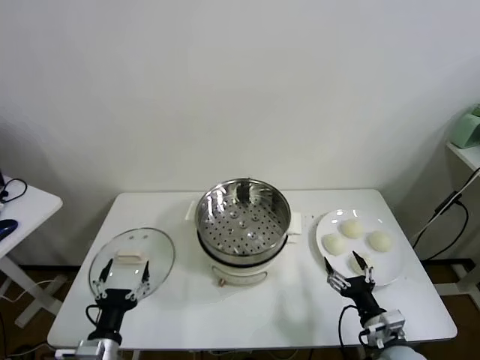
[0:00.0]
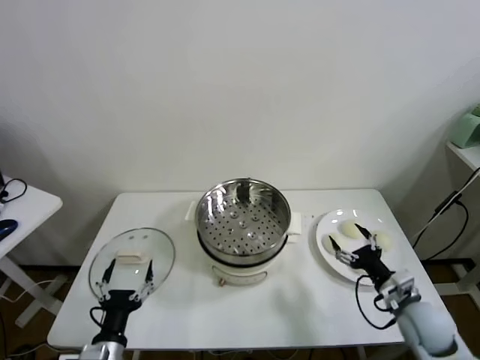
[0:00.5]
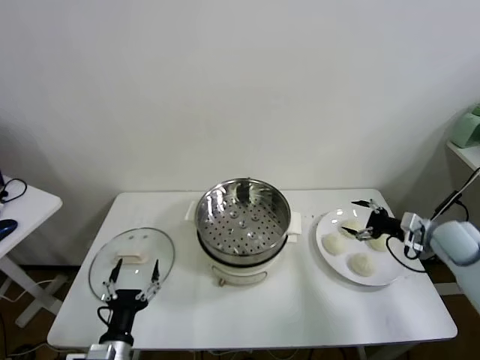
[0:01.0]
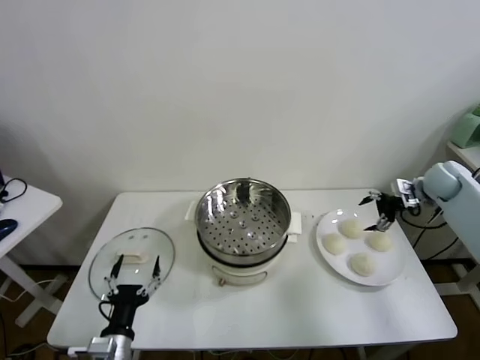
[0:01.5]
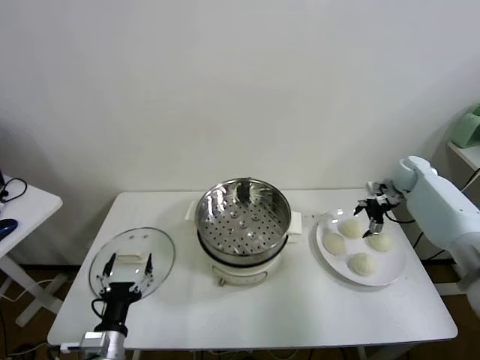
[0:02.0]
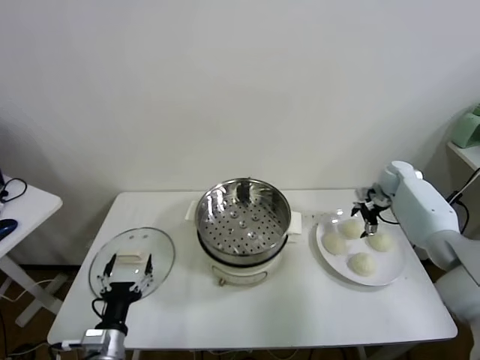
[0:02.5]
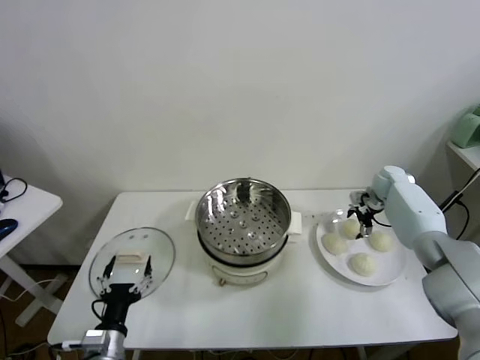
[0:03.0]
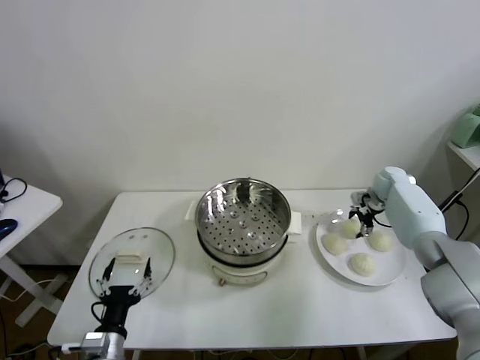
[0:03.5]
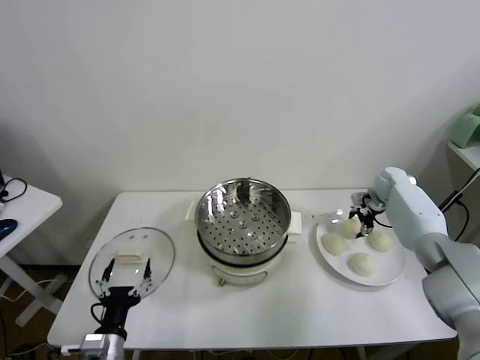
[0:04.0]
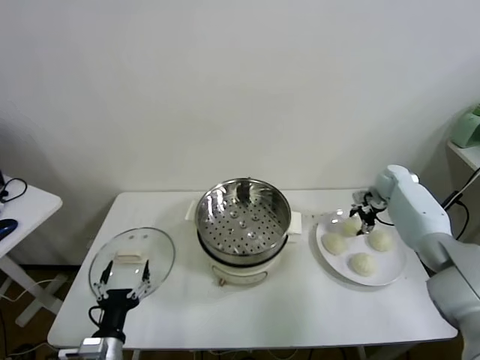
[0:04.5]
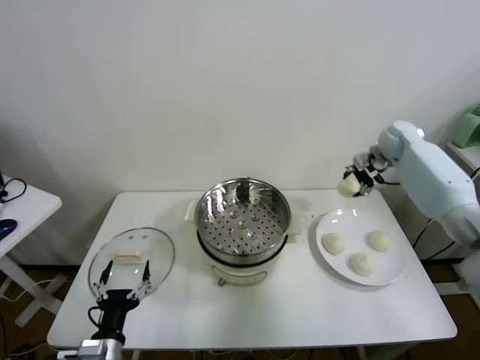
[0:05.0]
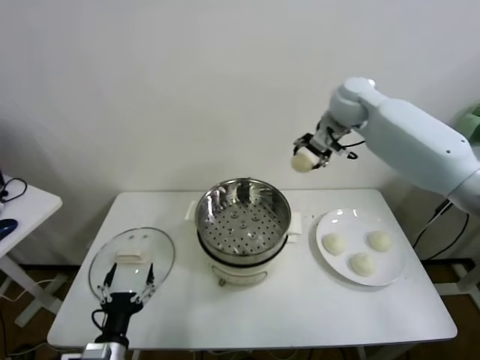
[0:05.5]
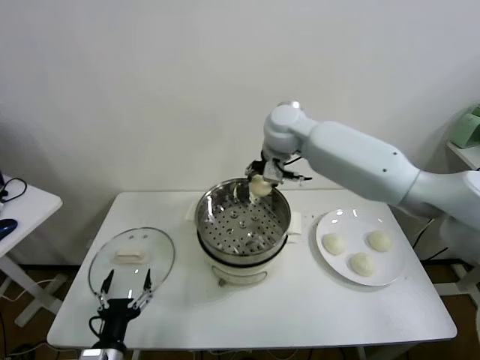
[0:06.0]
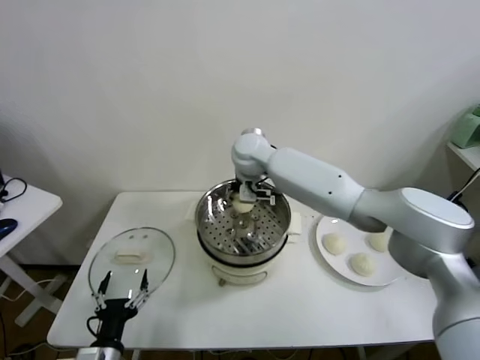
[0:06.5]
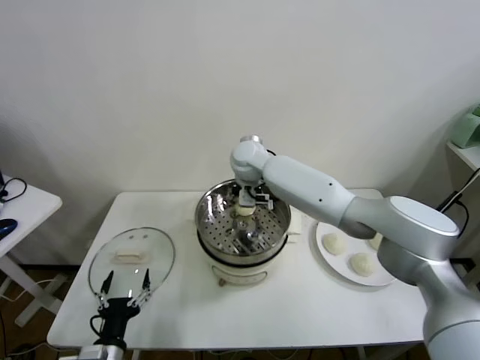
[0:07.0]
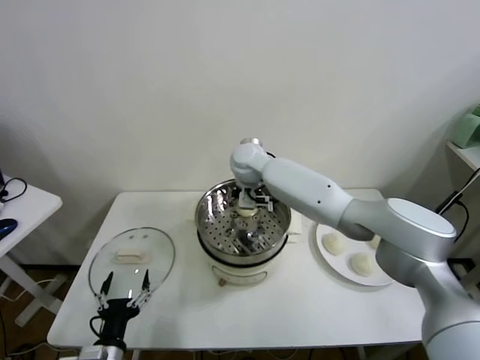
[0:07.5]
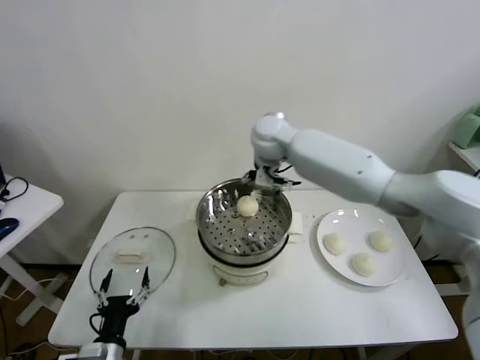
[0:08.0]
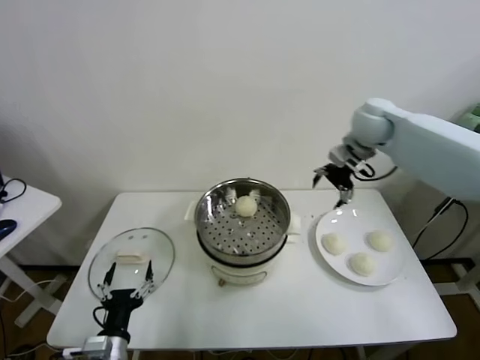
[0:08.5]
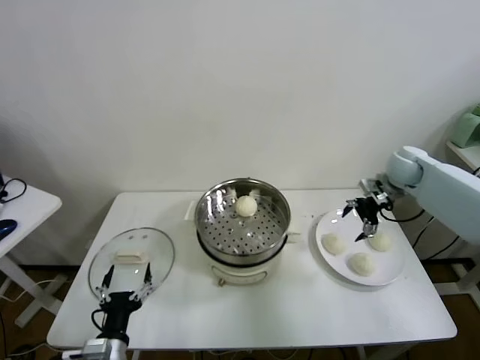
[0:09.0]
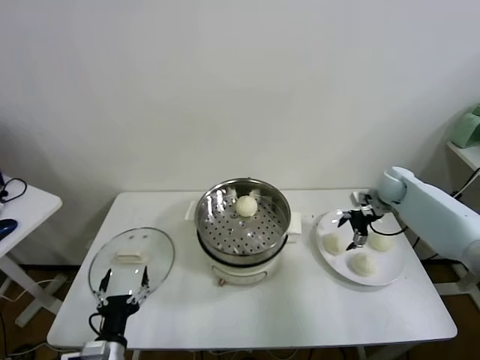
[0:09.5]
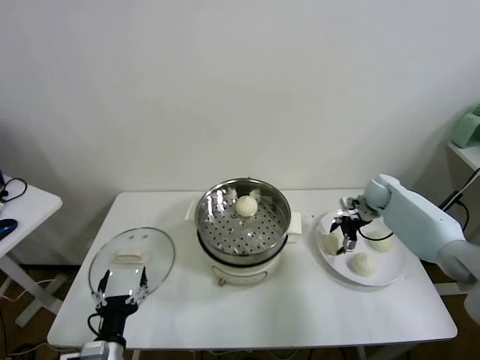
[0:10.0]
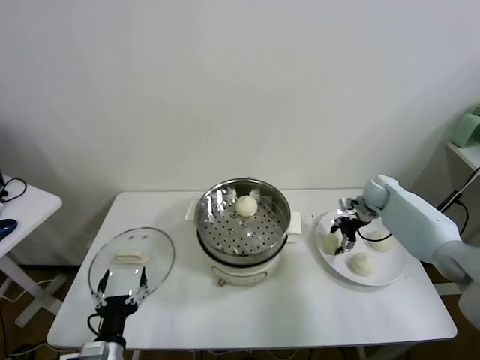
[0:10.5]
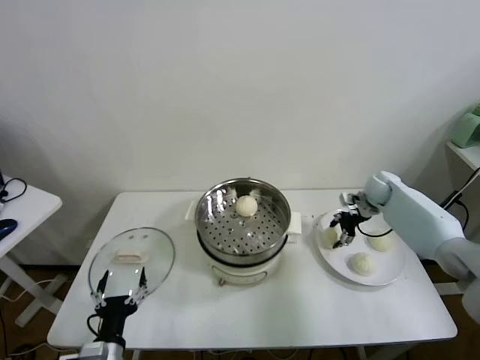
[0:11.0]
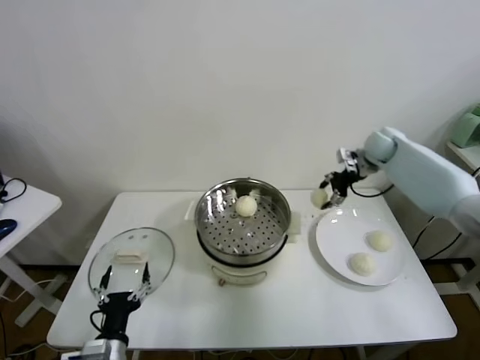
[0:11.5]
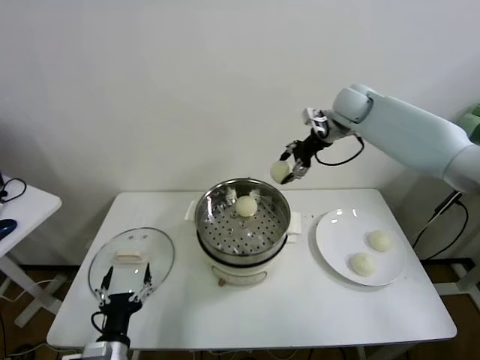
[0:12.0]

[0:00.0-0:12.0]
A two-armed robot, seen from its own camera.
Task of the whole recording: take steamed baozi put them in steamer.
Step, 0:00.0 to 0:04.0: Grasp the baozi in the plate with right gripper.
Step, 0:04.5 to 0:07.5: Place the baozi on the steamer with right gripper.
Step, 0:08.0 to 0:10.5: Grasp the baozi in the plate with right gripper.
0:02.0 to 0:04.0: The right gripper closes its fingers.
0:04.0 to 0:06.0: The right gripper shifts roughly 40 cm to the left and upward.
0:06.0 to 0:08.0: The right gripper travels downward and back again, about 10 cm each way, and opens.
0:08.0 to 0:10.0: The right gripper shifts some 35 cm to the right and downward.
0:10.0 to 0:12.0: The right gripper heads upward and to the left, covering approximately 30 cm, and closes up.

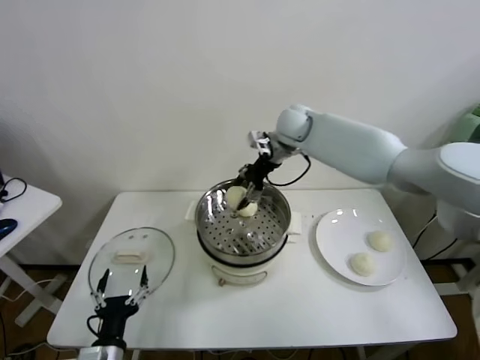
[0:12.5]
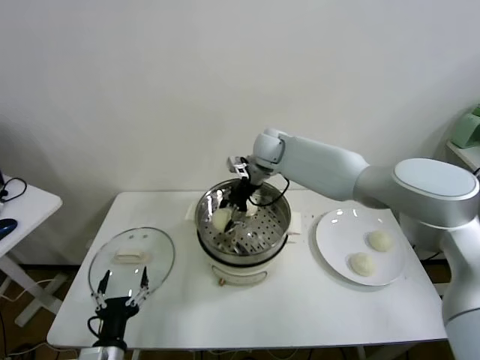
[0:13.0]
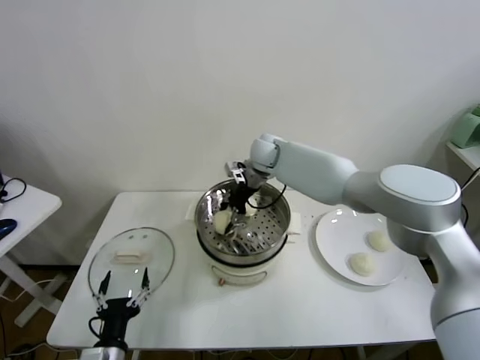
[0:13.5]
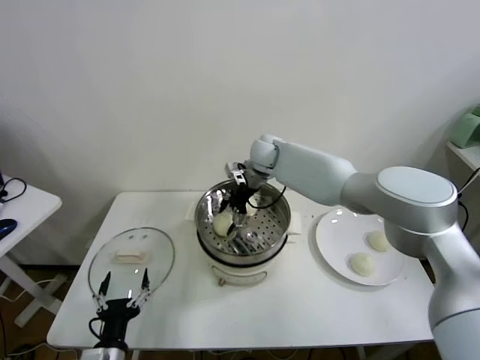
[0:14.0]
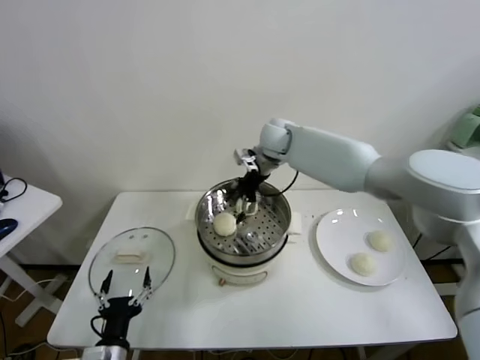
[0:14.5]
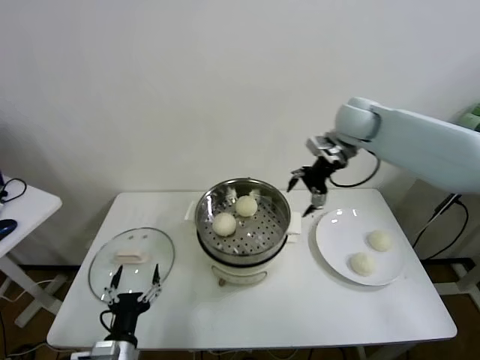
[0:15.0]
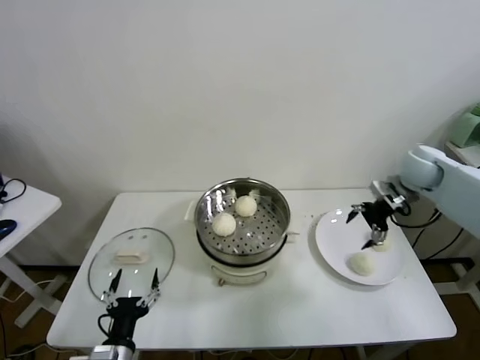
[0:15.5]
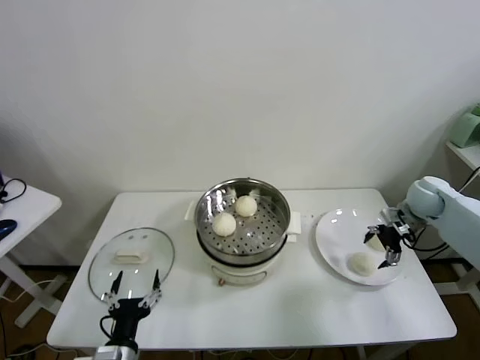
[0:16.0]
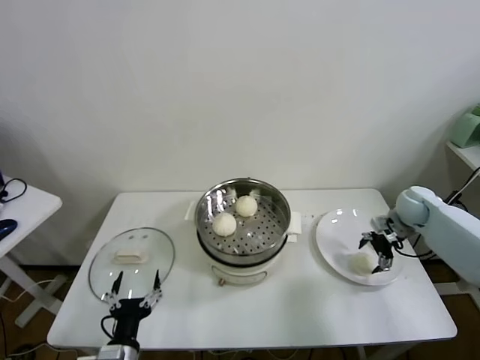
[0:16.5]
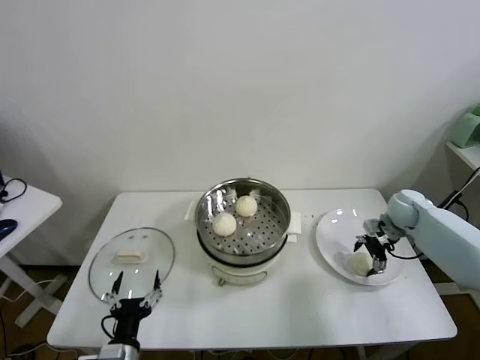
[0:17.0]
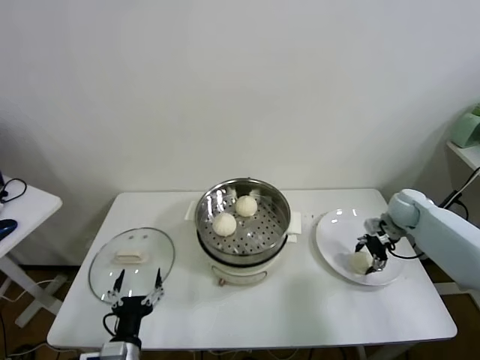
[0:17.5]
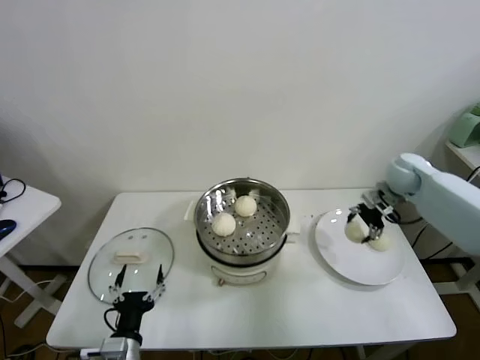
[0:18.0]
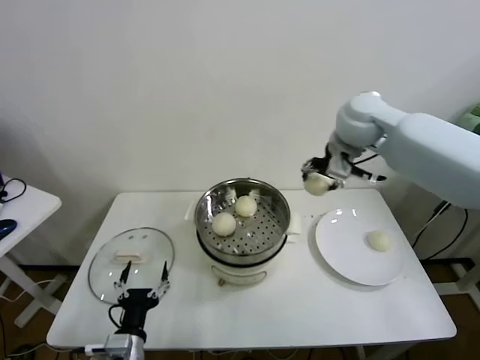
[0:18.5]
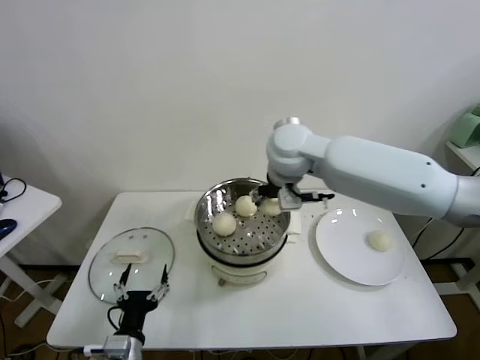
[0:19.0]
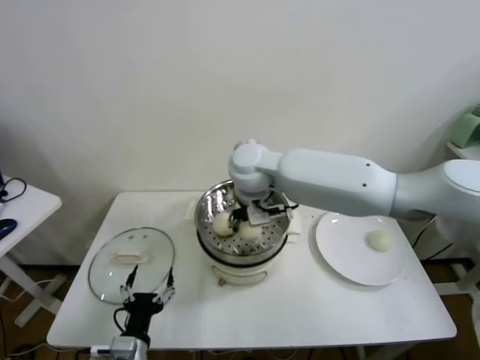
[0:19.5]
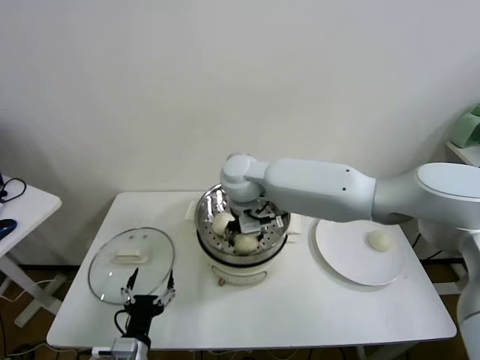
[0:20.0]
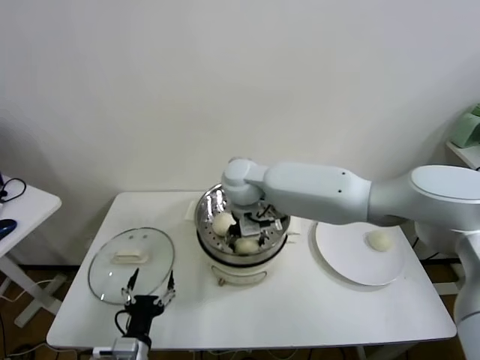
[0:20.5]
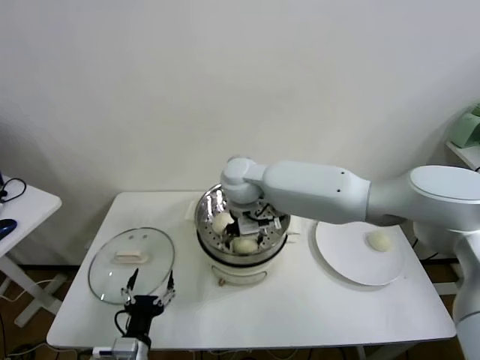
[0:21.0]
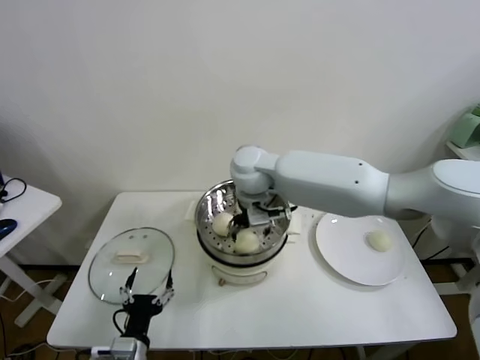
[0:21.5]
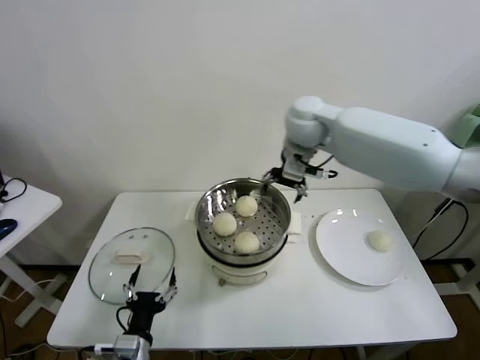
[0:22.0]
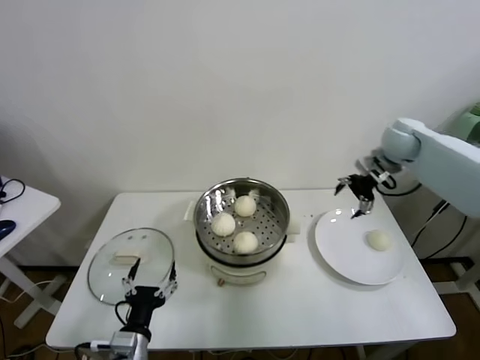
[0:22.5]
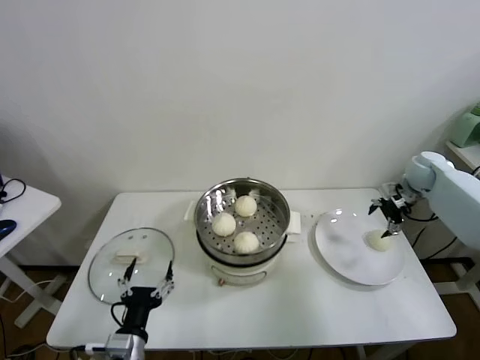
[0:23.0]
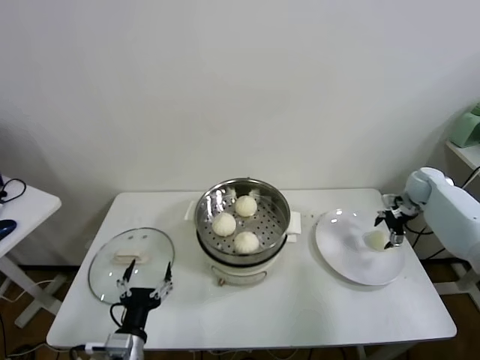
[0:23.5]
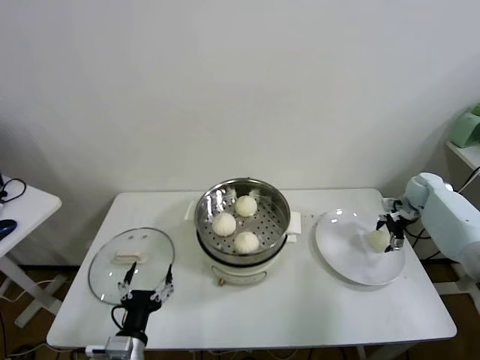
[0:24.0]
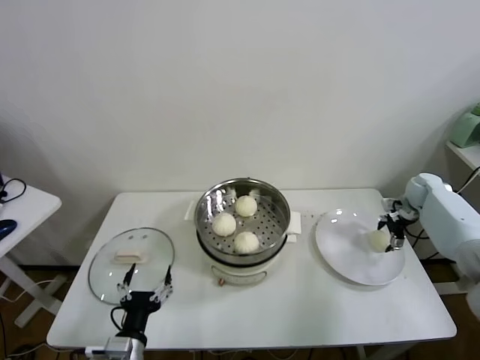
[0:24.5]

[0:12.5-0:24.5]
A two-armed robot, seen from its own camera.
Task of the whole recording: take steamed baozi put them in steamer.
Step, 0:14.5 to 0:17.0: Grasp the baozi in the plate with right gripper.
Step, 0:17.5 to 0:21.0: Place the baozi on the steamer with right gripper.
0:12.5 to 0:14.5: The right gripper opens up.
0:14.5 to 0:16.5: The right gripper goes approximately 40 cm to the right and downward.
0:16.5 to 0:18.5: The right gripper moves upward and to the left, roughly 35 cm, and closes its fingers.
0:18.5 to 0:20.5: The right gripper moves to the left and downward, roughly 25 cm.
0:20.5 to 0:22.5: The right gripper is displaced to the right by some 40 cm, and opens its fingers.
0:22.5 to 0:24.5: The right gripper is displaced downward and to the right by approximately 20 cm.

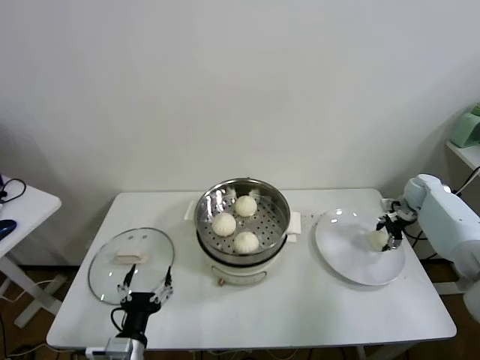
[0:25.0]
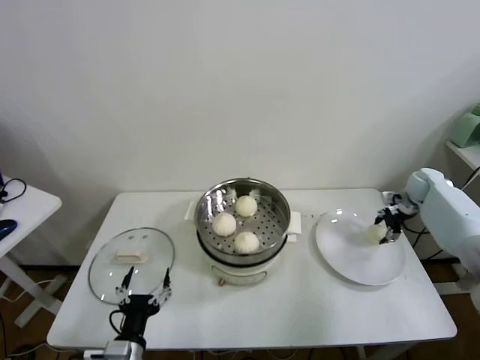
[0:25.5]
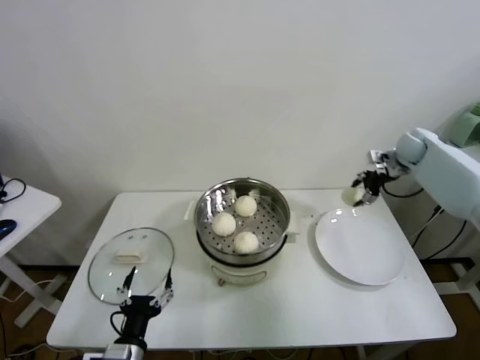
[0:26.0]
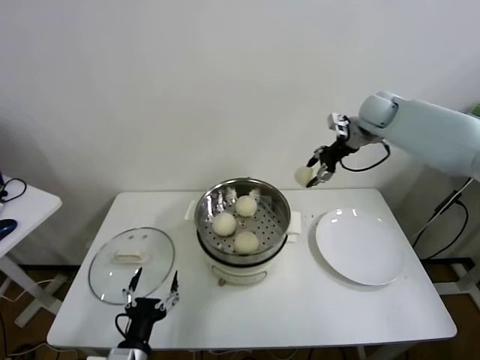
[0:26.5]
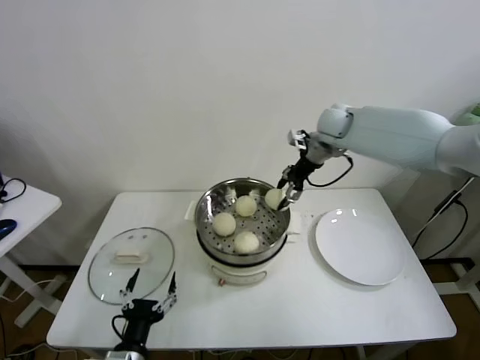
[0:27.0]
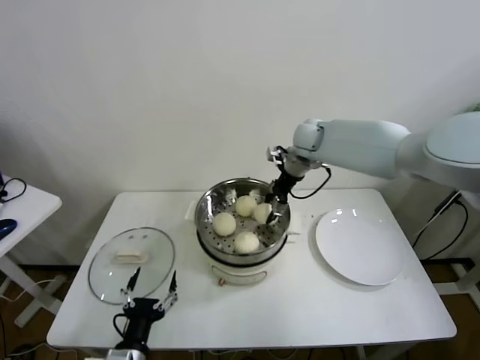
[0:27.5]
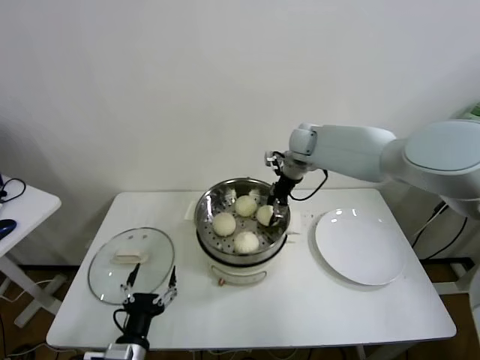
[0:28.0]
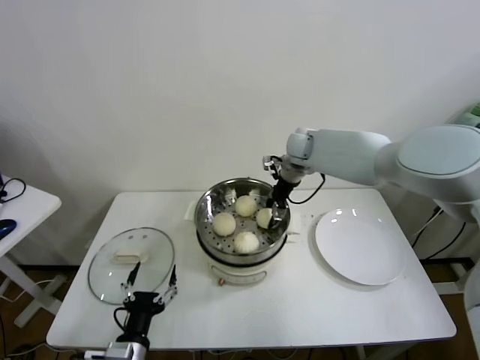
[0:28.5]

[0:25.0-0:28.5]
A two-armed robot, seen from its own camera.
Task of the whole recording: take steamed baozi put them in steamer.
0:25.0 to 0:27.0: The right gripper goes approximately 35 cm to the left and upward.
0:27.0 to 0:28.5: The right gripper moves downward and to the left, approximately 10 cm.
